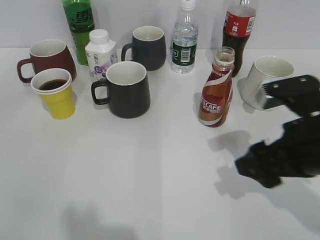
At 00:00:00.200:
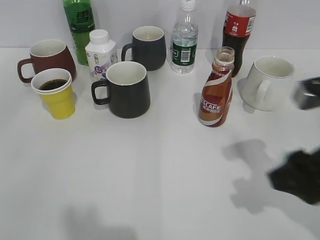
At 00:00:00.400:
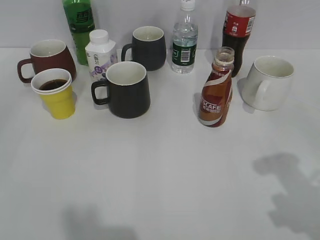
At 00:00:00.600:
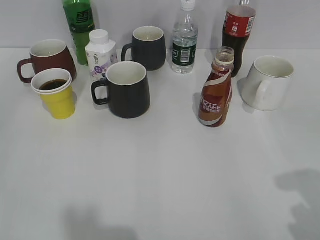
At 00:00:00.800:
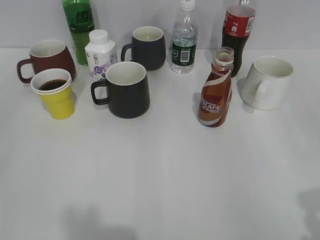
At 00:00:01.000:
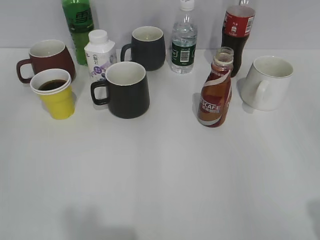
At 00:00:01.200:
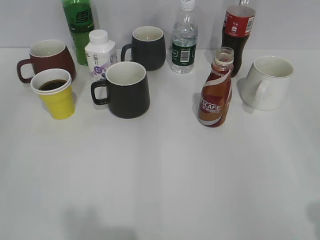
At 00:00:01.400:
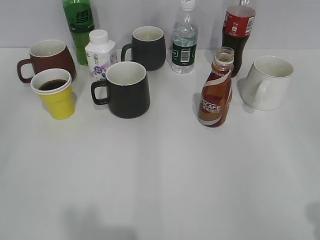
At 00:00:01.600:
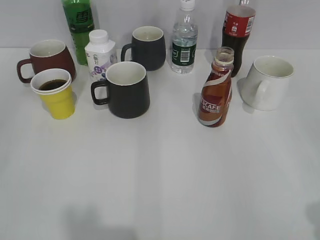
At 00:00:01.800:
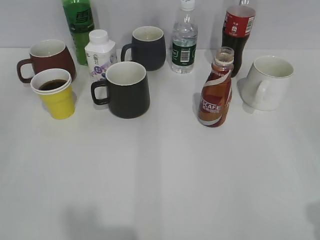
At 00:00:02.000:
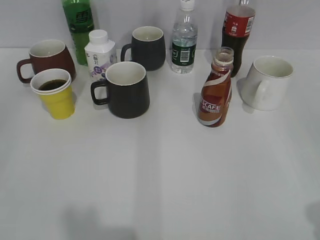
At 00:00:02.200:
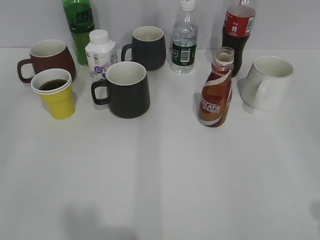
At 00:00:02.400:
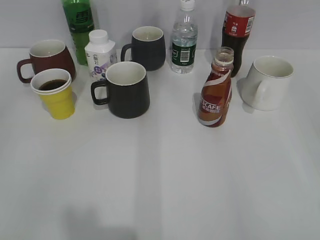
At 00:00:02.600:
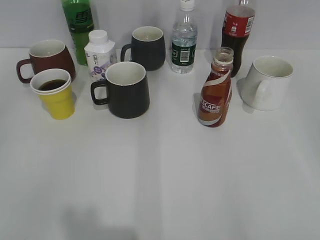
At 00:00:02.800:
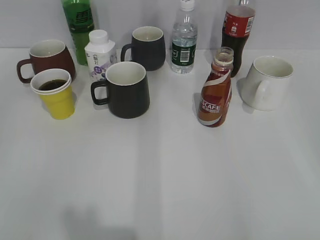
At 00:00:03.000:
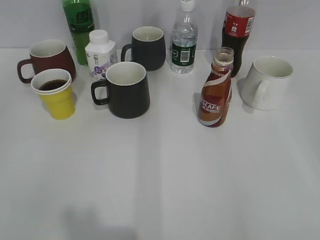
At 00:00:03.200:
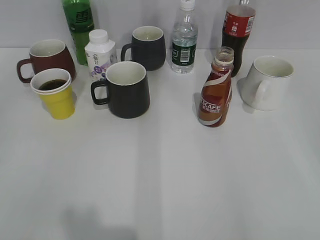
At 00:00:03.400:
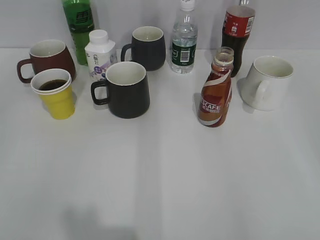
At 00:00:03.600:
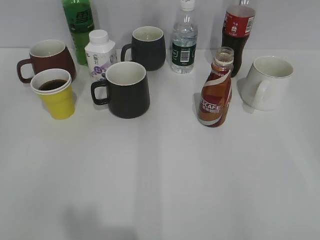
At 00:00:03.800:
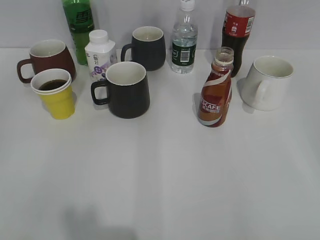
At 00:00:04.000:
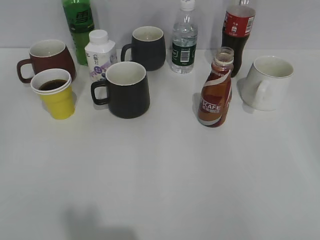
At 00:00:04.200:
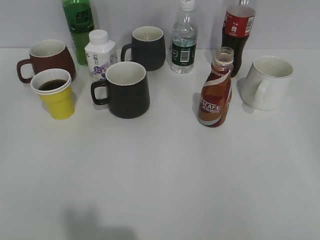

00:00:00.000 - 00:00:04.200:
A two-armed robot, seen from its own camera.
00:00:00.000 - 00:00:01.400: The left gripper moves backward, about 5 cm, while the right gripper goes some 20 cm backward, to the right and upward.
00:00:02.800 - 00:00:04.200: Both grippers stay about where they are.

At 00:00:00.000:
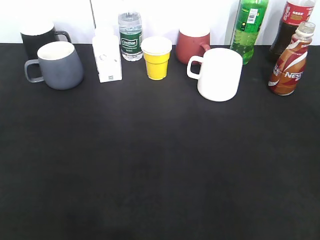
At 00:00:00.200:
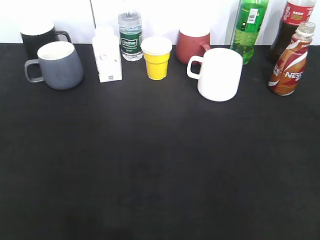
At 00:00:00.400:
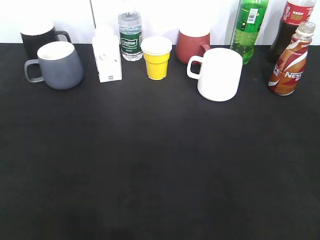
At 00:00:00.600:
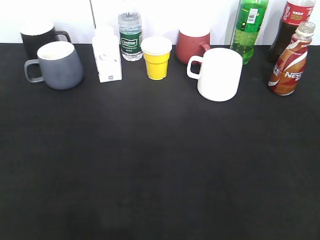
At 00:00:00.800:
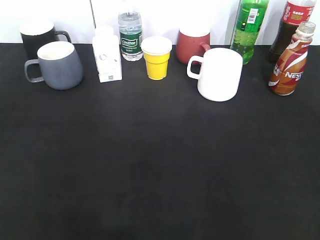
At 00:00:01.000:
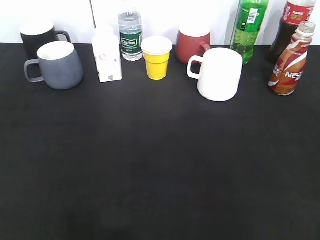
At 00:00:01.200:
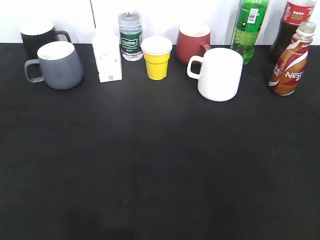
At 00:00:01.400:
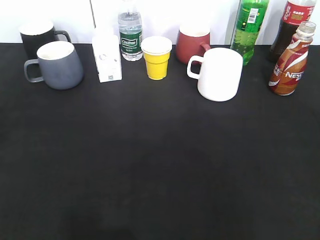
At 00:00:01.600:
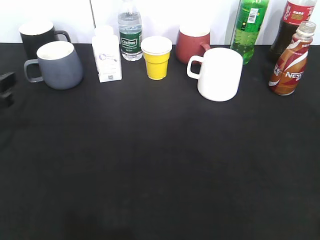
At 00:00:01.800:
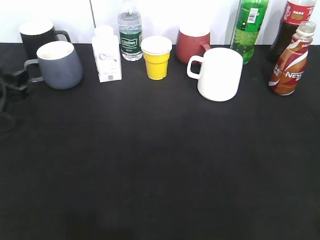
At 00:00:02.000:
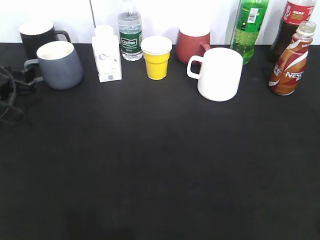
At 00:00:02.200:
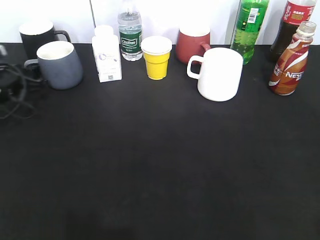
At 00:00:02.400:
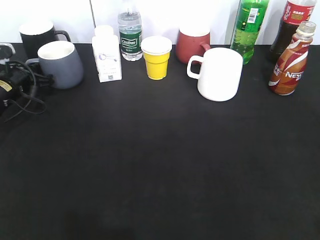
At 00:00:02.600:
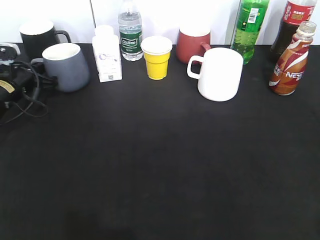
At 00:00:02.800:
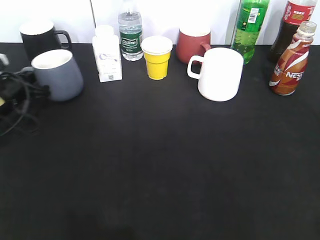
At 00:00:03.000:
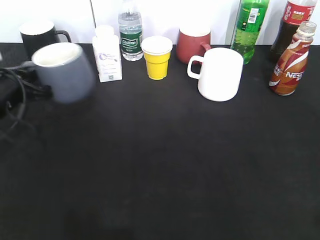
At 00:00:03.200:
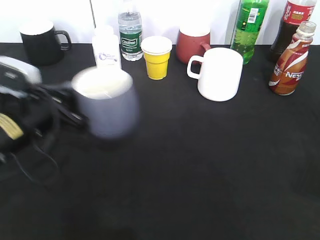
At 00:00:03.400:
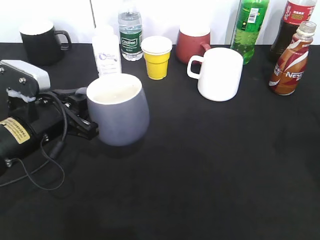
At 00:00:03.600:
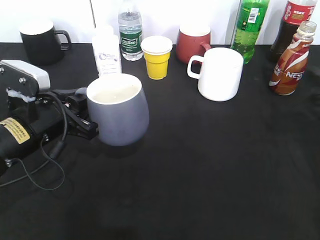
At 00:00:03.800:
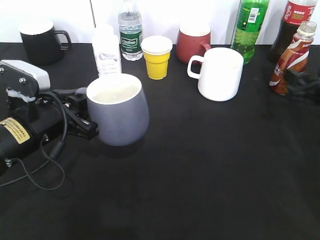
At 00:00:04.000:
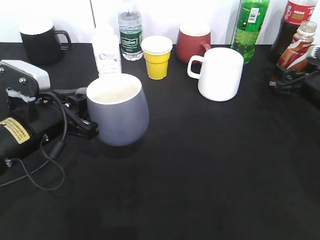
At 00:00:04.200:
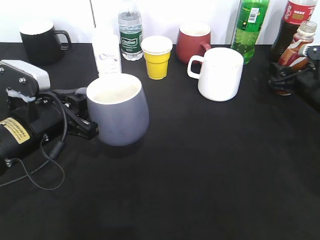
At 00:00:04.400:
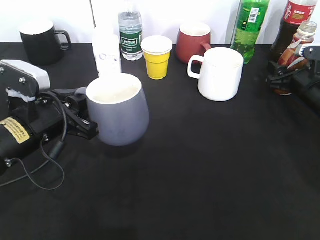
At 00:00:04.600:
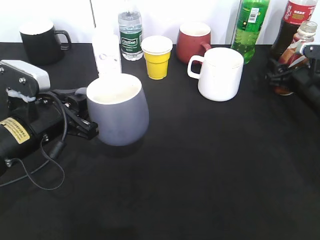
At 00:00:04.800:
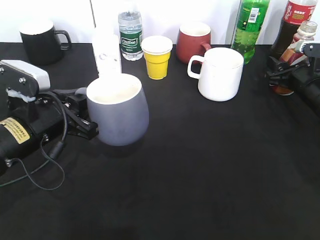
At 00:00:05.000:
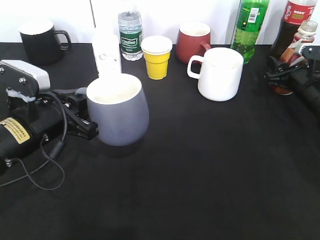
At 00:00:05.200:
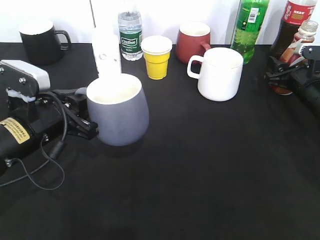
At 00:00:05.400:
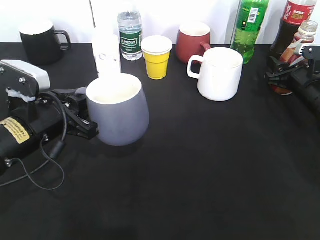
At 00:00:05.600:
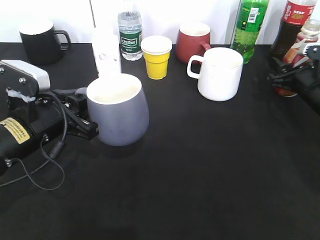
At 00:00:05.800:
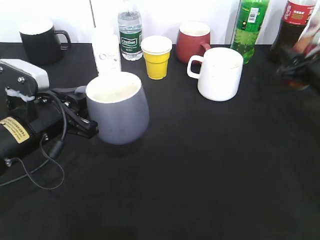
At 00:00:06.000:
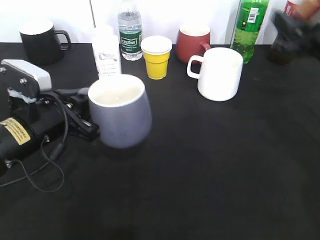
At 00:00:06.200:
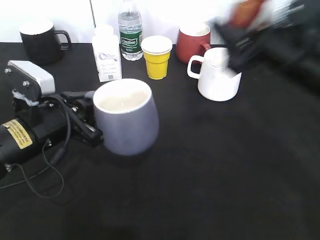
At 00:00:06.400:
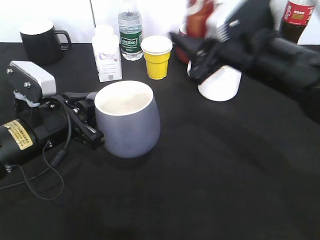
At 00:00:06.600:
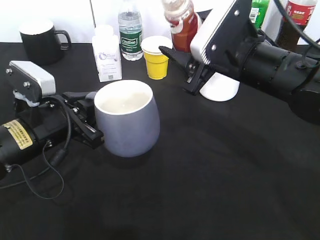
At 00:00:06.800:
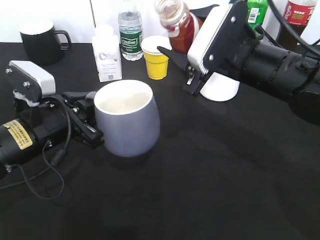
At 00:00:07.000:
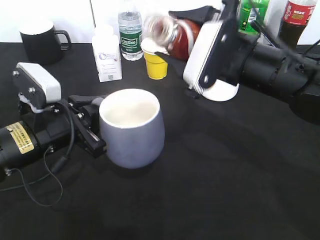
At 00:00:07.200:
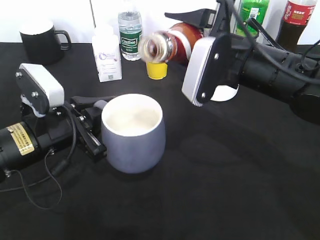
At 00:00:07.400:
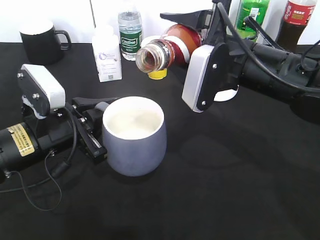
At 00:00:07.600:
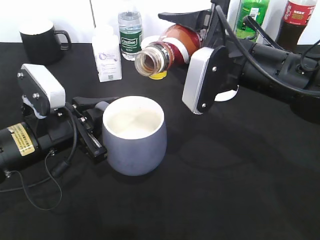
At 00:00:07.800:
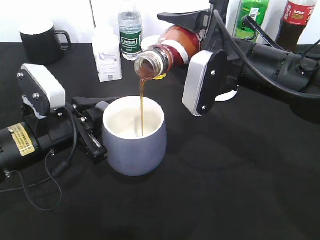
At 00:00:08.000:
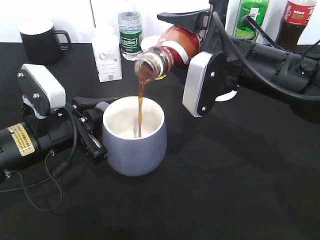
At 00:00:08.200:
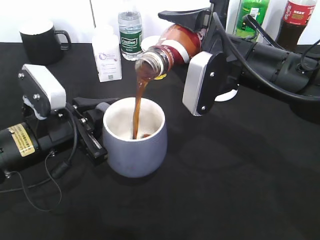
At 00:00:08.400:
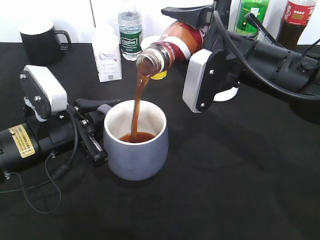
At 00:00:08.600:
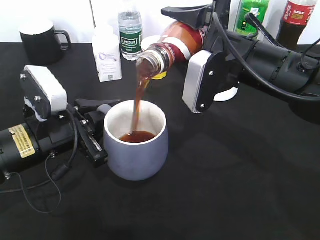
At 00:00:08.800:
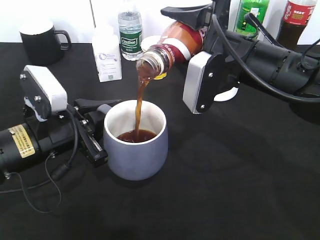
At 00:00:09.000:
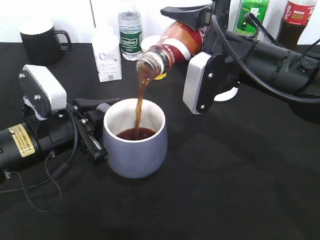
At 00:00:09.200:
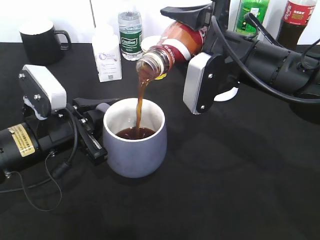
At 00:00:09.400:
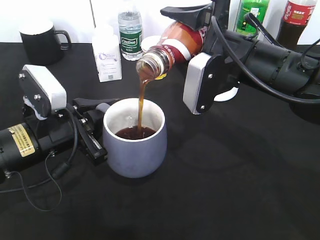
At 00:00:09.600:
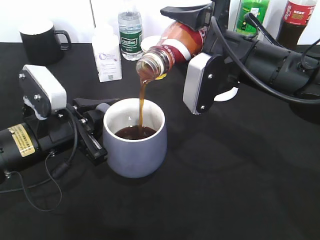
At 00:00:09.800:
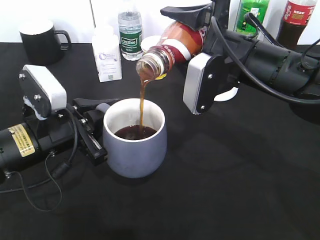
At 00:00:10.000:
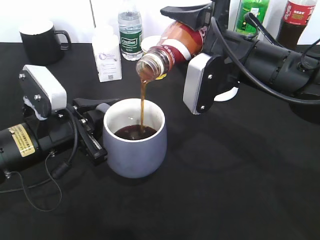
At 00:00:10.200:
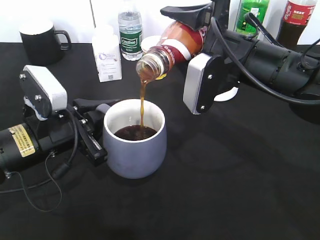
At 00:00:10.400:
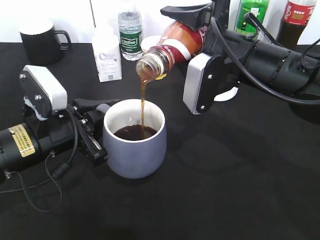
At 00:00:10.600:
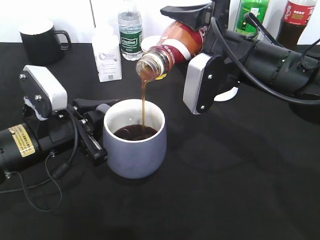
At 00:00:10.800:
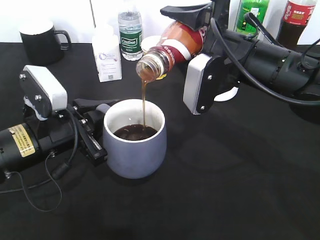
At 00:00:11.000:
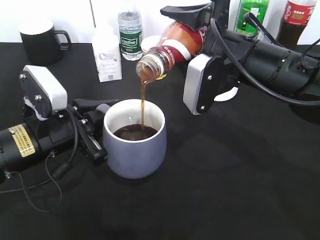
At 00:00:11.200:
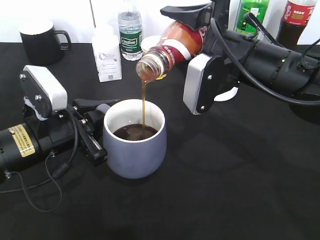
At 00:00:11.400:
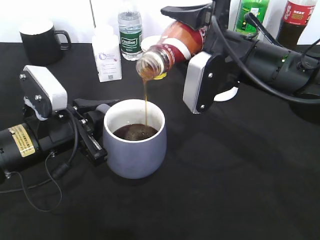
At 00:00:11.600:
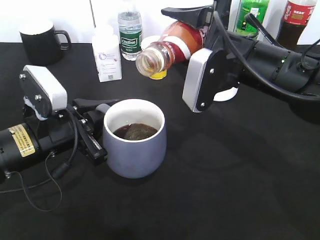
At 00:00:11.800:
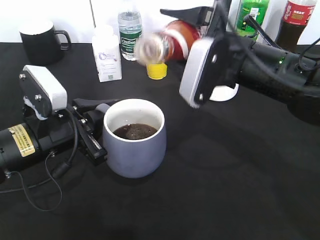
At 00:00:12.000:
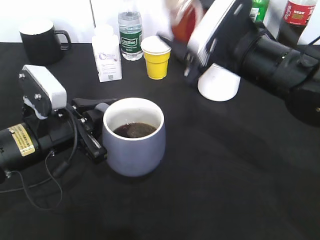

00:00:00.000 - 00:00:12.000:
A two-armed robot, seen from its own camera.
Step, 00:00:00.600 - 00:00:02.400: Grasp the grey cup with left gripper.
Step, 00:00:02.600 - 00:00:03.400: Lift the grey cup with left gripper.
Step, 00:00:05.600 - 00:00:11.800: Pour the coffee from bottle to cup with right gripper.
00:00:00.000 - 00:00:01.600: The left gripper shifts about 30 cm forward and downward.
00:00:01.600 - 00:00:03.000: The left gripper goes roughly 5 cm to the right, travels forward and back again, about 10 cm each way, and closes up.
00:00:03.000 - 00:00:04.400: The right gripper is displaced forward and downward by some 40 cm, and opens up. Meanwhile the left gripper travels to the right and backward by some 10 cm.
00:00:04.400 - 00:00:06.000: The right gripper is displaced upward and backward by about 15 cm.
00:00:06.000 - 00:00:07.600: The right gripper goes roughly 15 cm to the left.
00:00:07.600 - 00:00:09.000: The grippers make only small movements.
00:00:09.000 - 00:00:10.400: Both grippers stay put.

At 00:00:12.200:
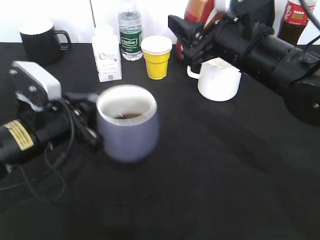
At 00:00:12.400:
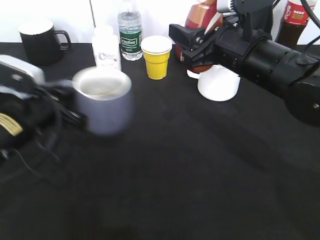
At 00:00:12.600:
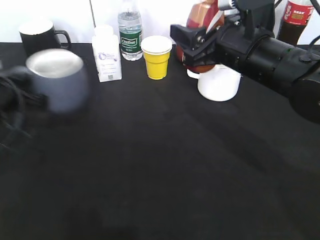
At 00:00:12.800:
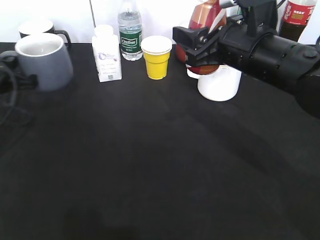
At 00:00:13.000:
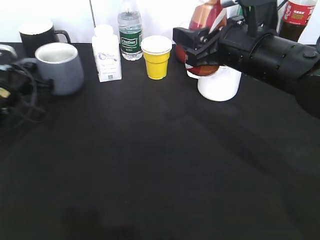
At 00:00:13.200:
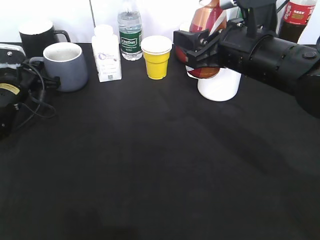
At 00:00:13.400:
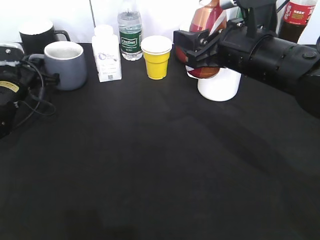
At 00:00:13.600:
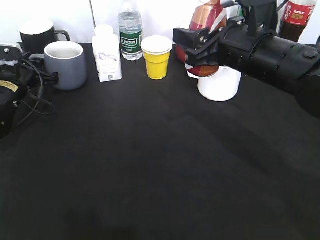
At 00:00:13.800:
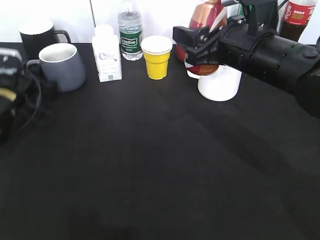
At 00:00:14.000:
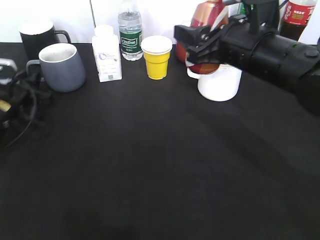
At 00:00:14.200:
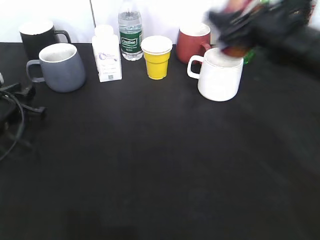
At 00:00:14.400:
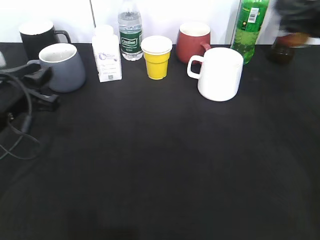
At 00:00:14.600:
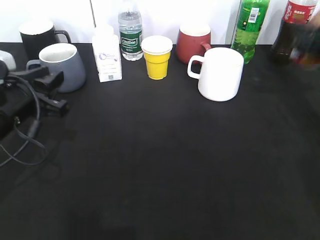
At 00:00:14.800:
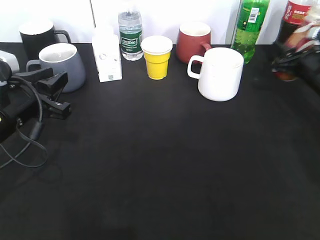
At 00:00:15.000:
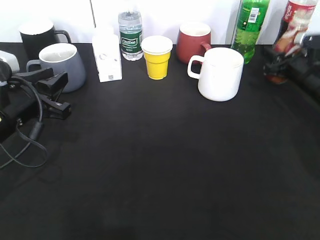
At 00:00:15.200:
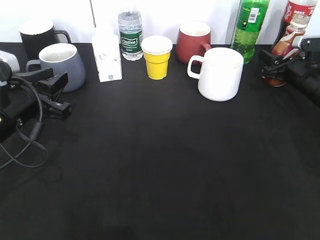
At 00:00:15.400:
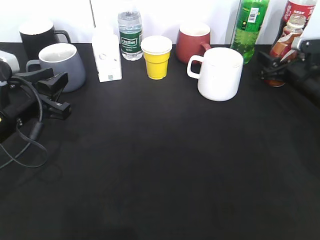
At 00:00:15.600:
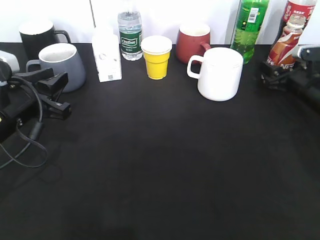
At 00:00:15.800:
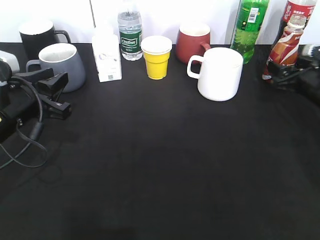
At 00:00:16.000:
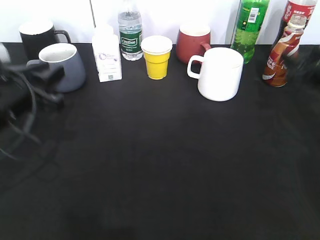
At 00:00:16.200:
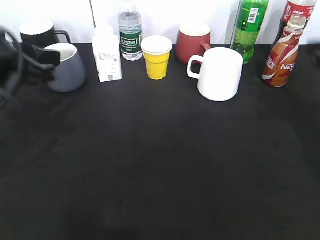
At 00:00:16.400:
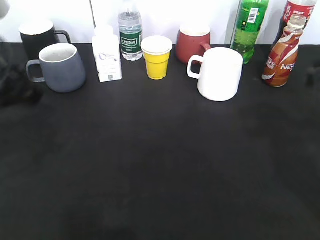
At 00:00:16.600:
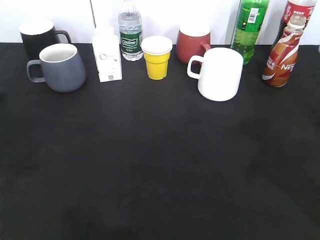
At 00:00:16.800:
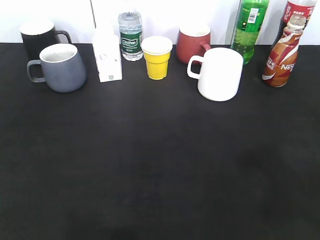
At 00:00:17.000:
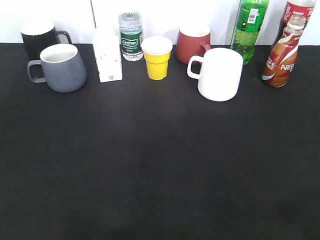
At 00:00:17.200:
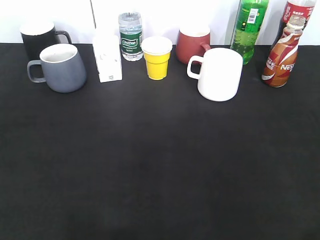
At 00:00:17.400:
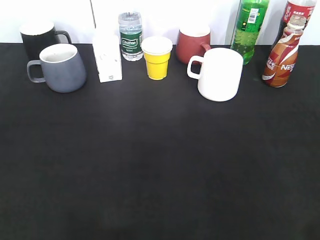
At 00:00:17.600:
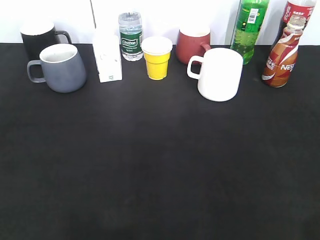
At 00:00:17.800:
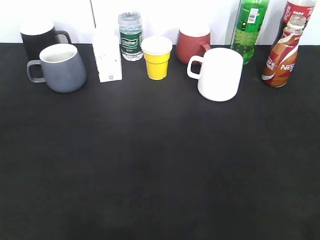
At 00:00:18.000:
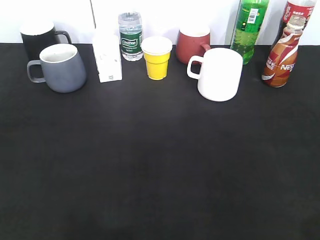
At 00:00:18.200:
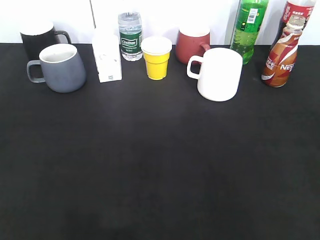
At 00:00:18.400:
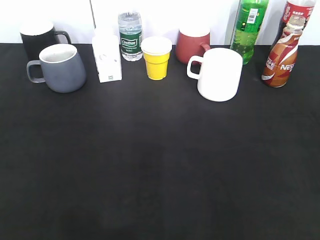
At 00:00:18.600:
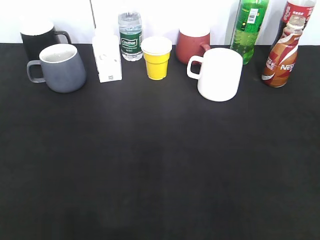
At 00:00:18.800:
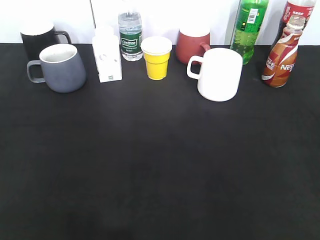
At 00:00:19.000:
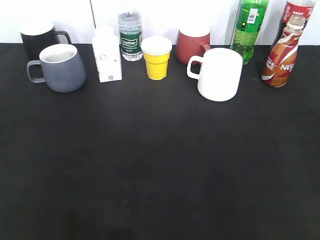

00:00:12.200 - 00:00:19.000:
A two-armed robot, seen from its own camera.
Step, 00:00:12.200 - 00:00:14.000: Place the grey cup on the table with left gripper.
Step, 00:00:14.200 - 00:00:16.000: Place the coffee bottle on the table with right gripper.
00:00:12.200 - 00:00:13.600: The left gripper goes about 20 cm forward and to the left, and opens its fingers.
00:00:13.600 - 00:00:15.000: The left gripper shifts about 15 cm backward, to the right and upward; the right gripper moves to the right, downward and forward, about 25 cm.
00:00:15.000 - 00:00:16.200: The right gripper is displaced backward and upward by approximately 20 cm. The left gripper moves upward, some 10 cm.
00:00:16.200 - 00:00:17.600: The left gripper moves backward and to the left, about 25 cm, and opens its fingers. Meanwhile the right gripper moves backward, some 25 cm, and closes, then reopens.
